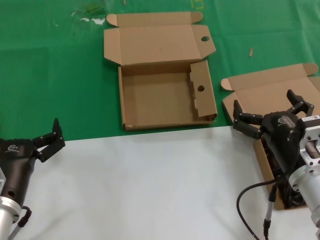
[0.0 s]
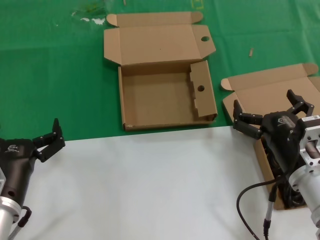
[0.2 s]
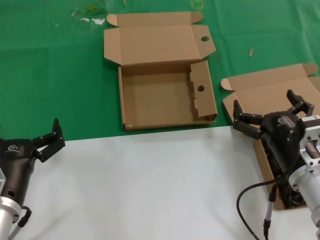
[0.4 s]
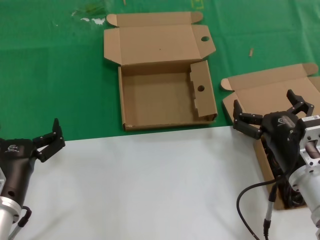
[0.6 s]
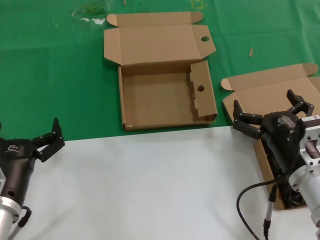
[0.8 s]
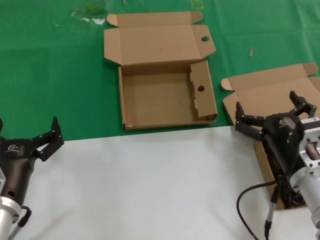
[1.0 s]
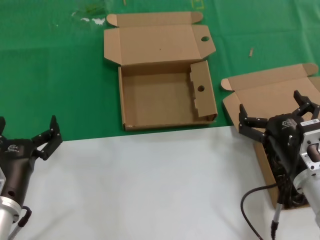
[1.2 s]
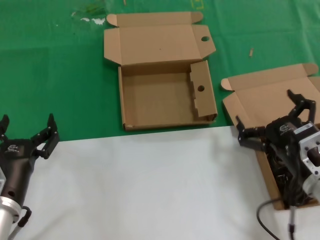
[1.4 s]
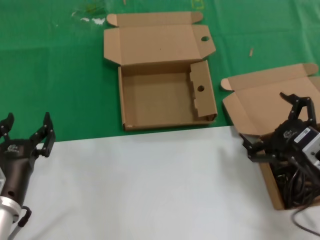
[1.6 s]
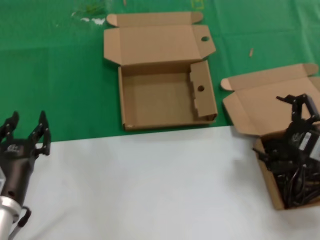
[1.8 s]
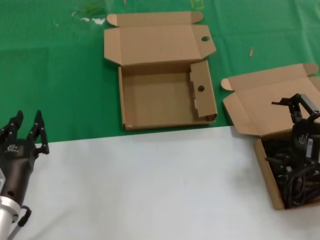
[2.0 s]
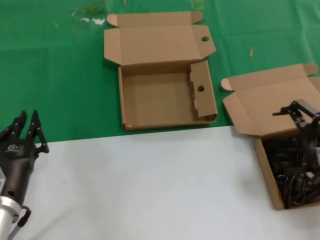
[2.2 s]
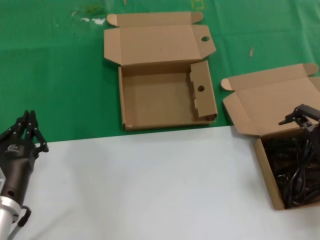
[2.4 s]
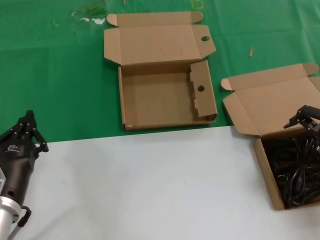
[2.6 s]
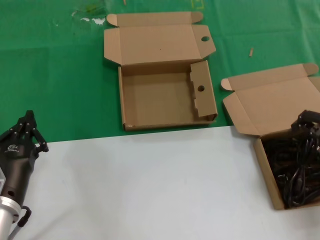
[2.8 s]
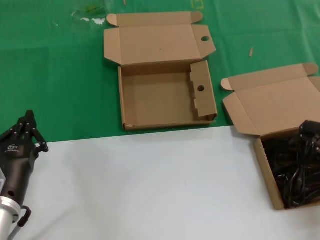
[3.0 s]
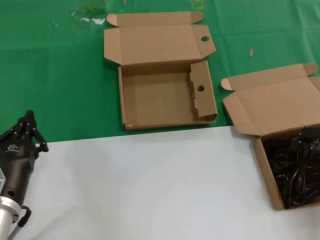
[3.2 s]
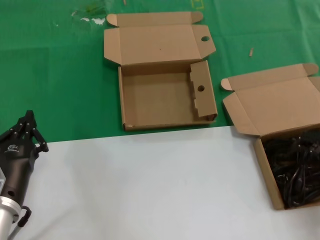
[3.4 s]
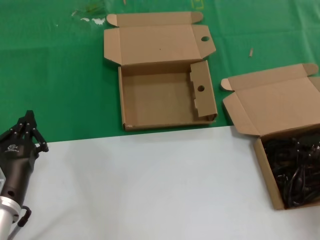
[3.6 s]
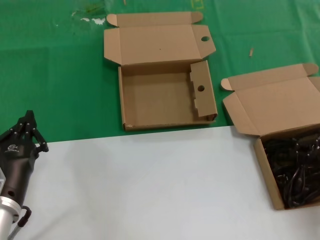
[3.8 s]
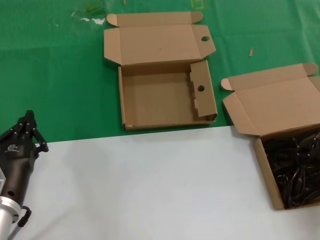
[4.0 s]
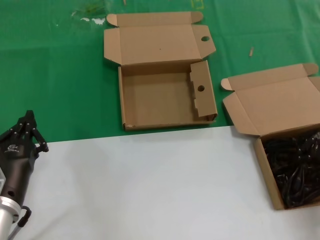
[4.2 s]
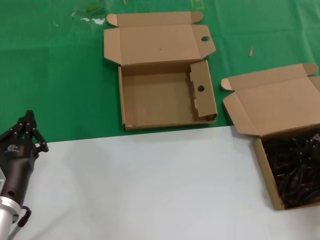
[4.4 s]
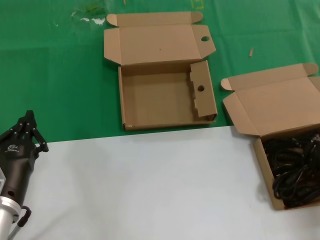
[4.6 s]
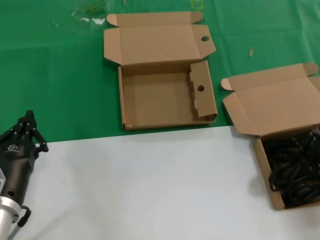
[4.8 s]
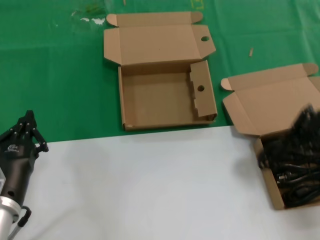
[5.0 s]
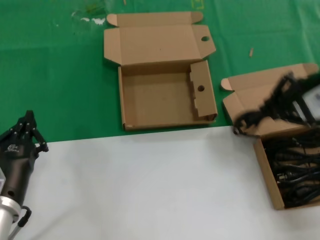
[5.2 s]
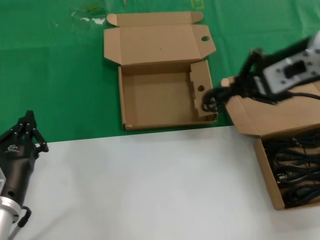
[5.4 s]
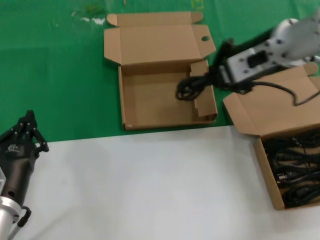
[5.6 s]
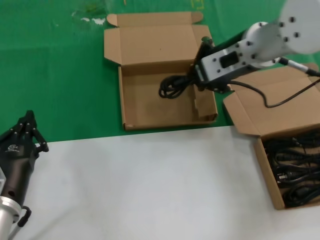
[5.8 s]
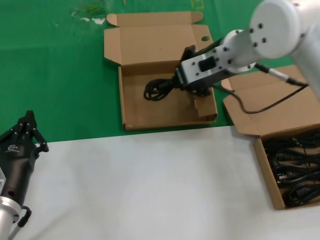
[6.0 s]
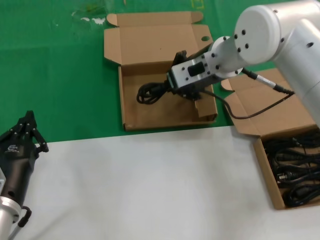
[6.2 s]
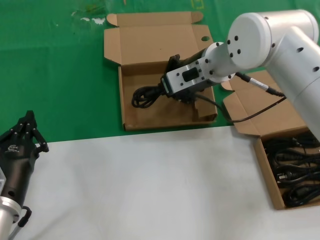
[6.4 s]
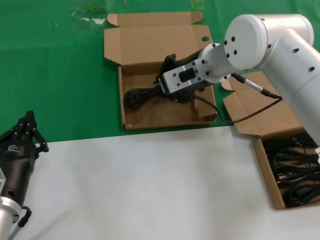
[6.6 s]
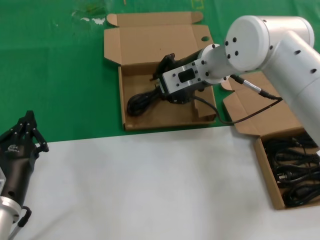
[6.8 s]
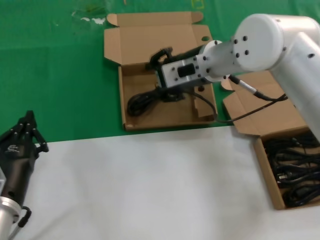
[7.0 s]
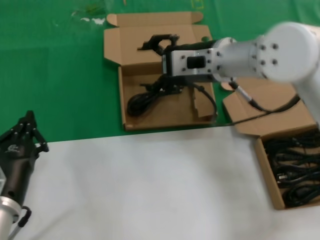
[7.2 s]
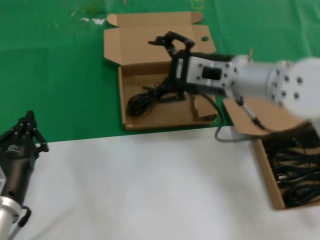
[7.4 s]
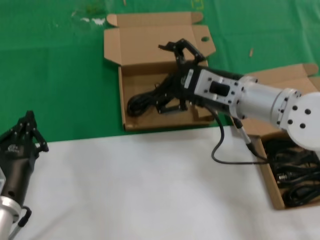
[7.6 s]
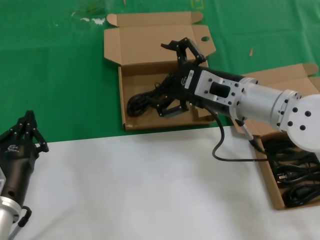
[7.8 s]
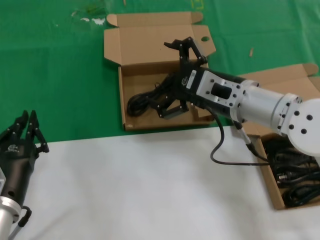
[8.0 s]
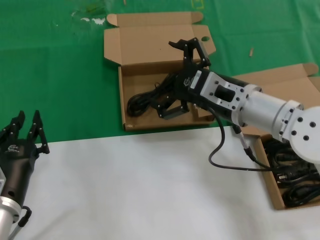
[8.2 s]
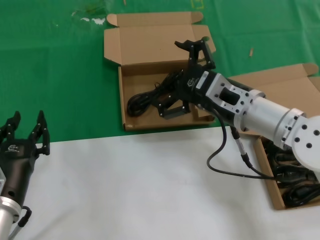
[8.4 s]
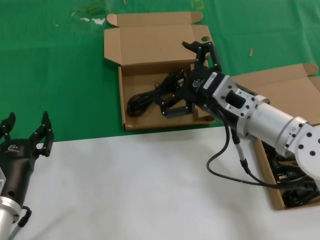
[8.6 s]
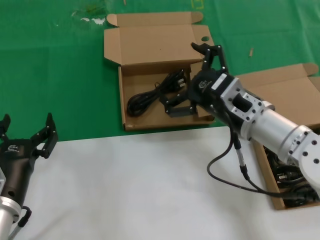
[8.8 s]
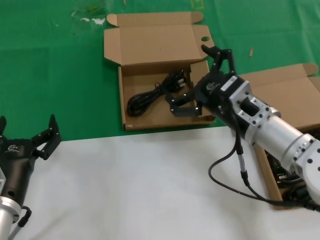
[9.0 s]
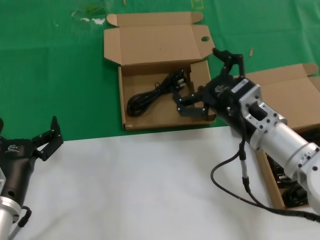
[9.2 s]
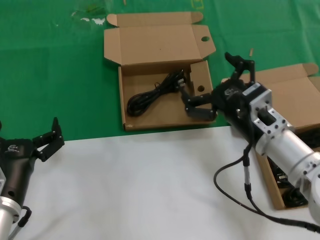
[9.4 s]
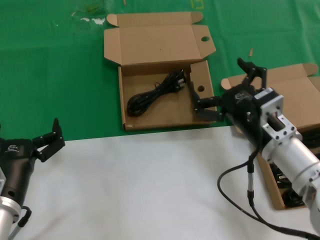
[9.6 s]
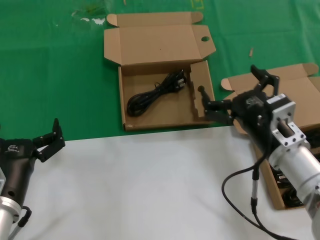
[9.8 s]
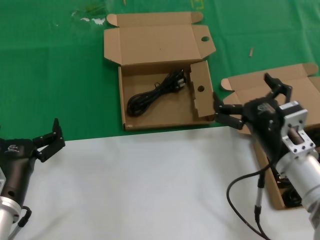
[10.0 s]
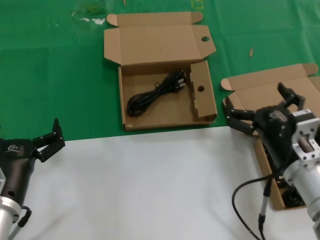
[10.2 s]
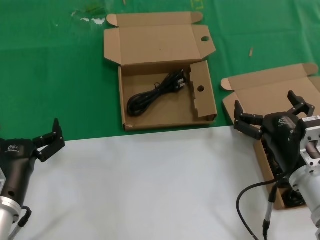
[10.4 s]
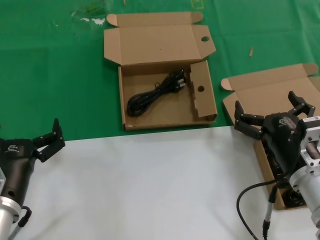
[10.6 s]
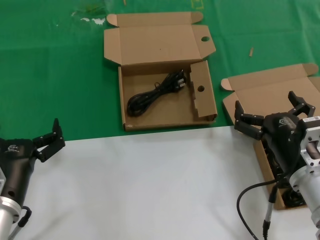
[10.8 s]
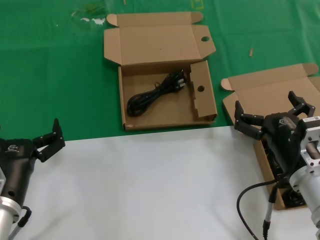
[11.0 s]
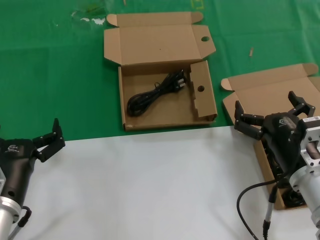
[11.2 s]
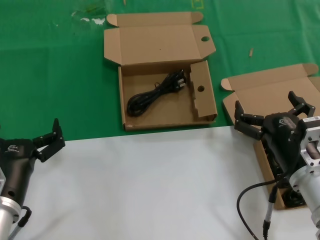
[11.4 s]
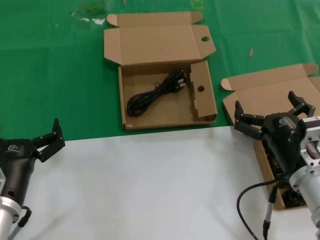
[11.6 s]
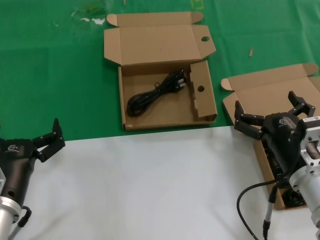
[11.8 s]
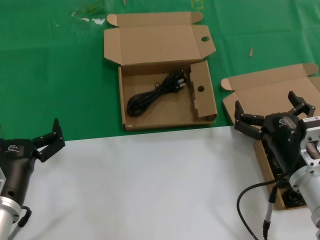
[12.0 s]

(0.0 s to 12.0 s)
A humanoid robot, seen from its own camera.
Task of the whole recording: take the parts from the box containing them and put them into an empty box.
Step, 0.0 s - 4.4 s: Grasp the data cable.
Step, 4.6 s - 6.8 s: Place the data cable in the another box.
0.0 s - 1.6 s: The right hand travels to the right by approximately 5 cm.
1.6 s - 3.0 s: The right hand travels upward, to the right and forward by about 20 cm.
4.4 s - 6.0 s: The right hand is displaced to the left and forward by some 25 cm.
6.0 s - 7.6 s: The right hand goes approximately 10 cm downward and backward.
7.6 s - 9.0 s: The right hand is displaced downward by about 5 cm.
9.0 s - 10.4 s: The right hand shifts approximately 10 cm downward, backward and to the right.
10.4 s - 12.0 s: Both hands stay put.

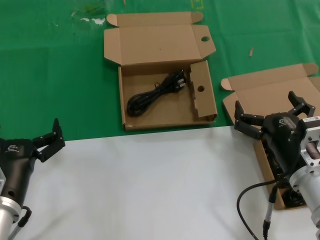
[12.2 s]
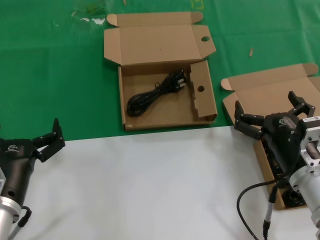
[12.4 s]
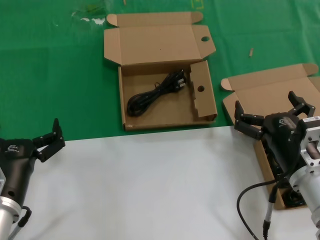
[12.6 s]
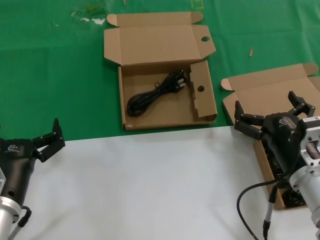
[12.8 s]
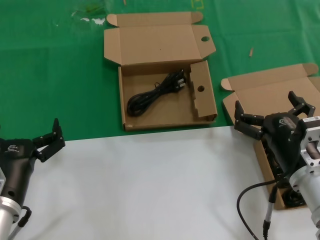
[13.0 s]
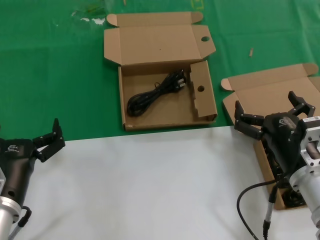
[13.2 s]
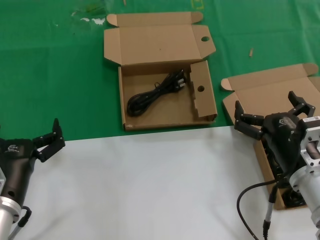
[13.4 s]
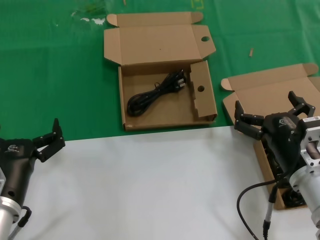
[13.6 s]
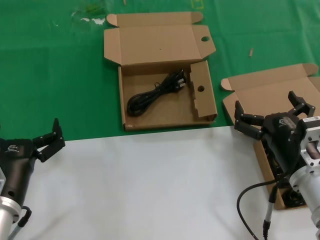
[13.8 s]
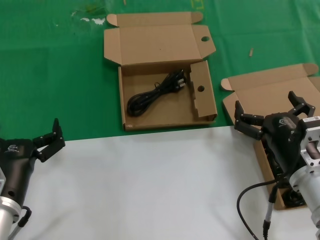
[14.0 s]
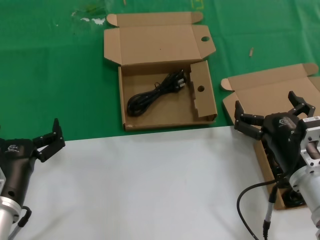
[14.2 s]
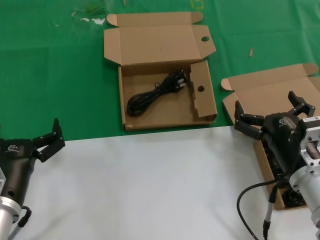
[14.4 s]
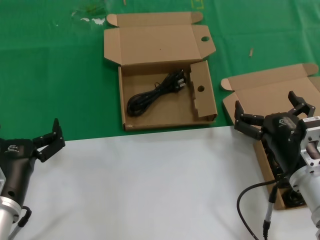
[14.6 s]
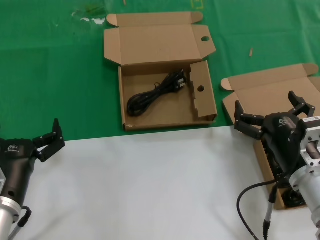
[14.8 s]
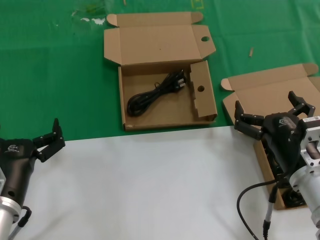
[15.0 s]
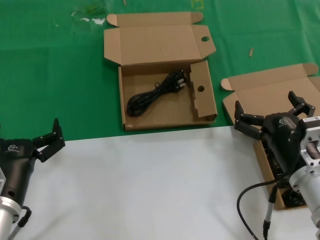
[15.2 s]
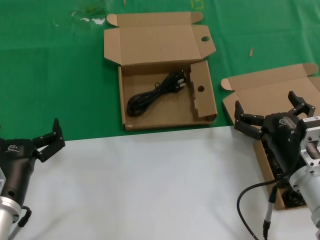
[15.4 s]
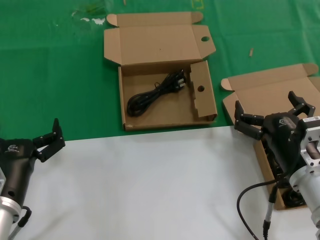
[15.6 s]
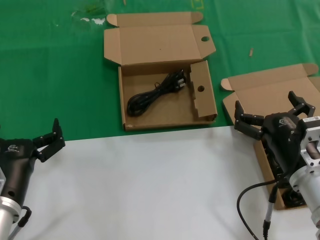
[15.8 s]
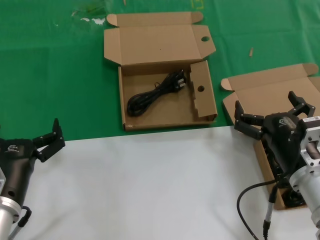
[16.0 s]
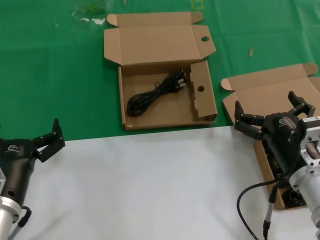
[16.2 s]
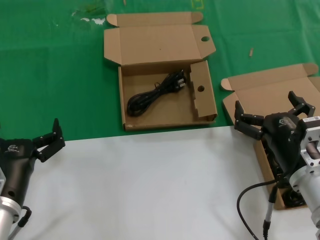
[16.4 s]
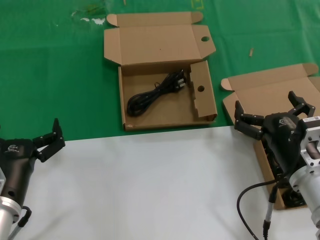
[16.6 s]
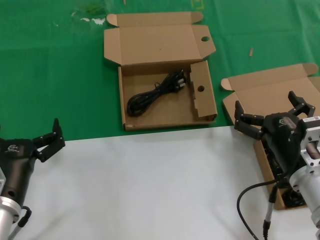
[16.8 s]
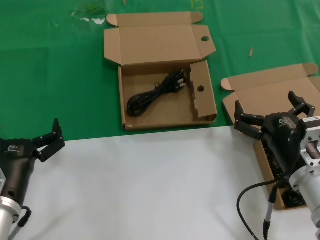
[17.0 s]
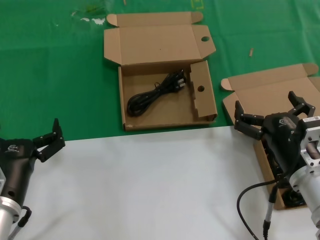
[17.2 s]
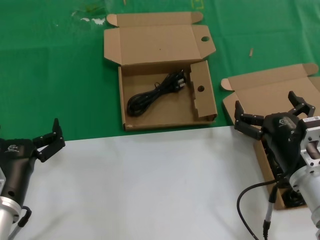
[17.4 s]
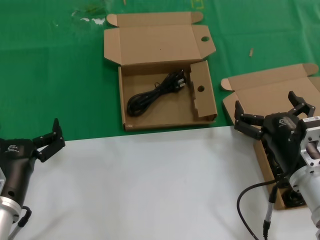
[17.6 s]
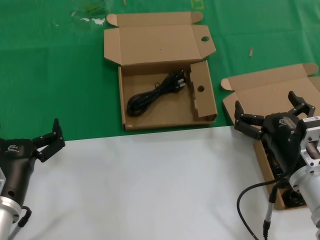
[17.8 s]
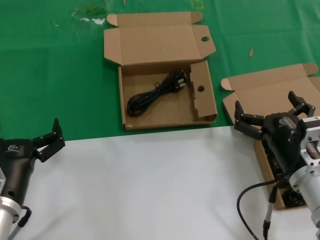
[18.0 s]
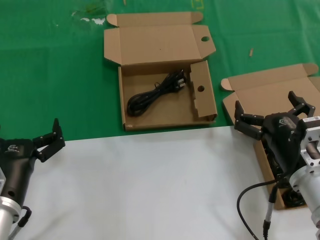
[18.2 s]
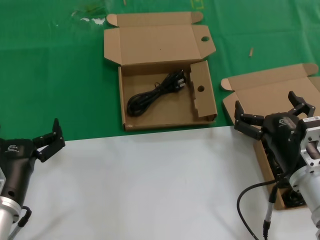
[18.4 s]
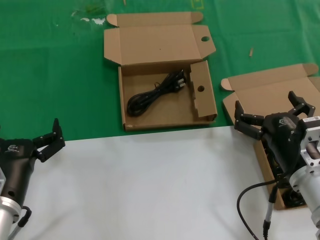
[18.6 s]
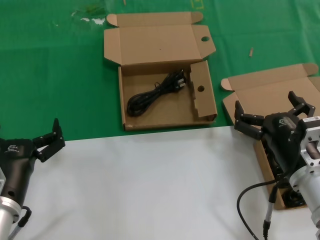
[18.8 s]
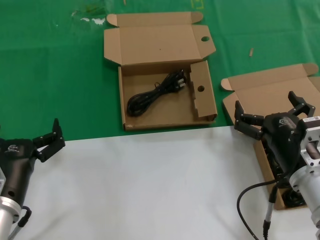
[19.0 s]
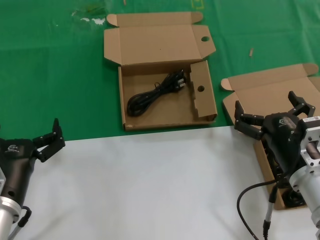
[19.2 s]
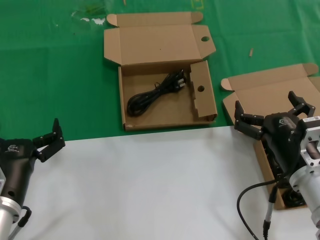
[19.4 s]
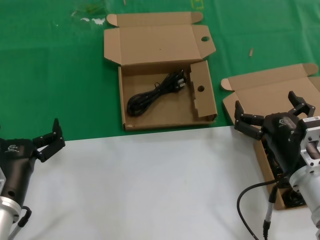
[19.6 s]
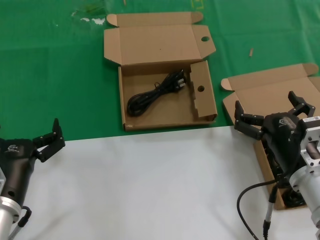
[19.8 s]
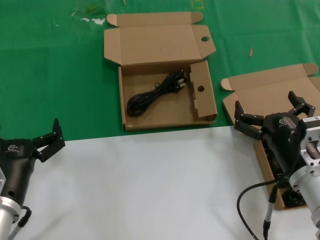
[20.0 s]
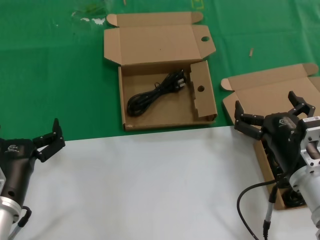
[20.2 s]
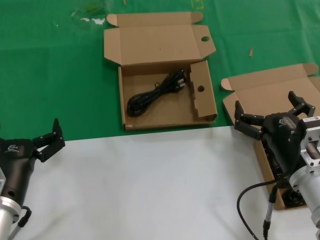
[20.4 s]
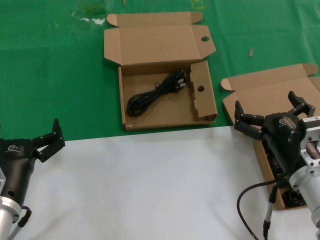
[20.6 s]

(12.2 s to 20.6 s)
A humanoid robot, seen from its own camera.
Task of the whole recording: take the parts from the box containing them and put them into an empty box.
12.2 s - 20.6 s: Both hands stay put.
